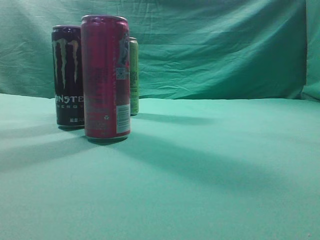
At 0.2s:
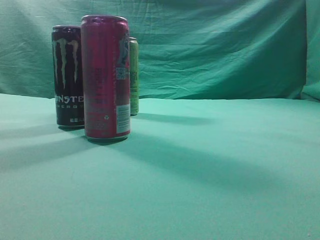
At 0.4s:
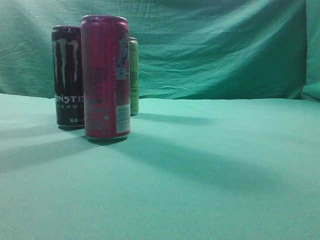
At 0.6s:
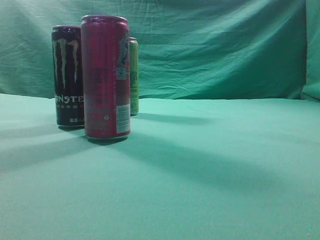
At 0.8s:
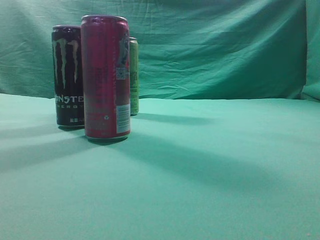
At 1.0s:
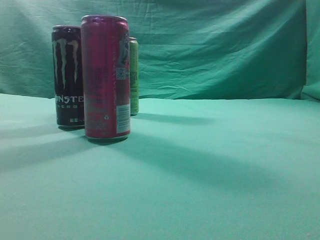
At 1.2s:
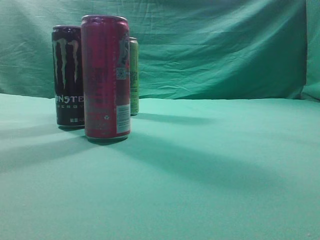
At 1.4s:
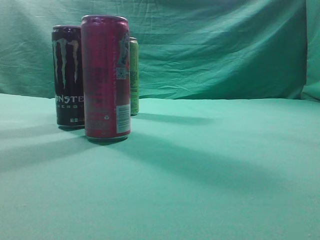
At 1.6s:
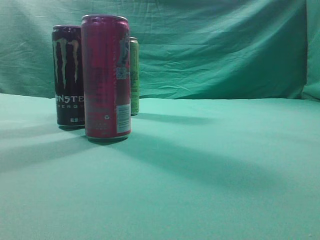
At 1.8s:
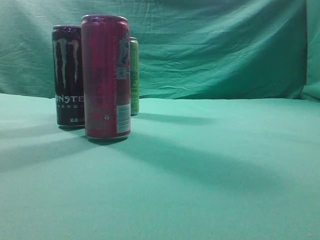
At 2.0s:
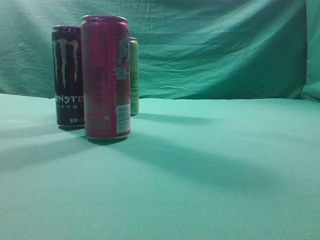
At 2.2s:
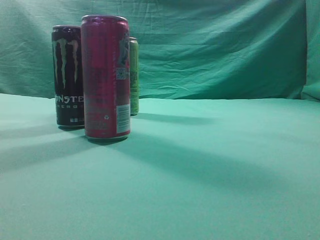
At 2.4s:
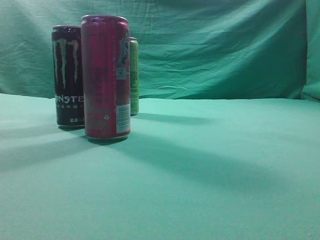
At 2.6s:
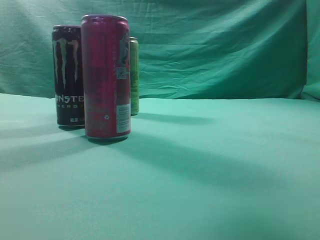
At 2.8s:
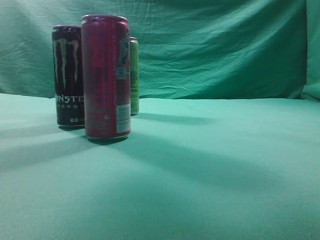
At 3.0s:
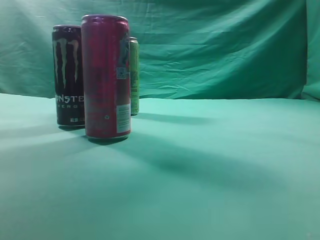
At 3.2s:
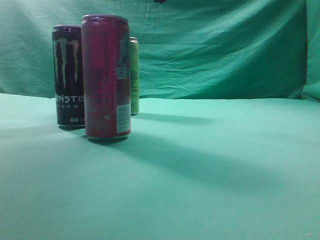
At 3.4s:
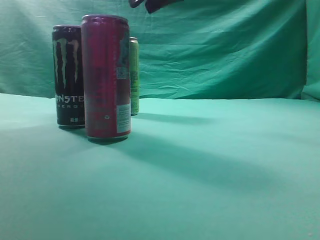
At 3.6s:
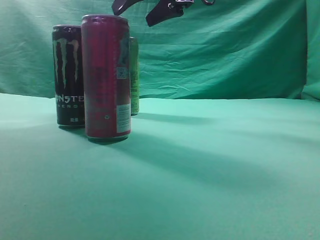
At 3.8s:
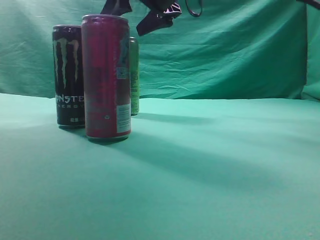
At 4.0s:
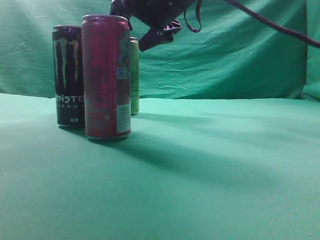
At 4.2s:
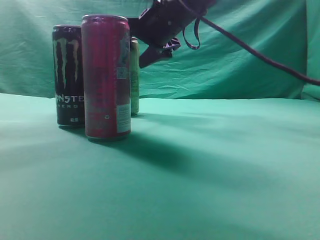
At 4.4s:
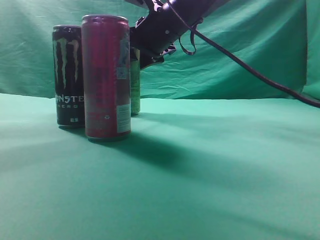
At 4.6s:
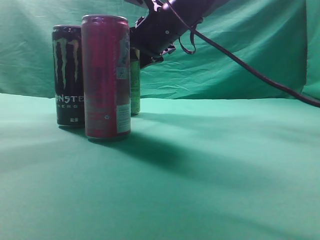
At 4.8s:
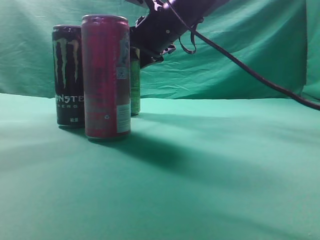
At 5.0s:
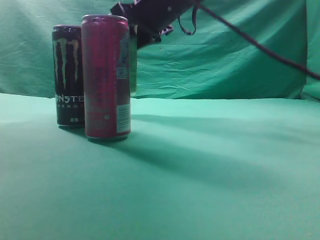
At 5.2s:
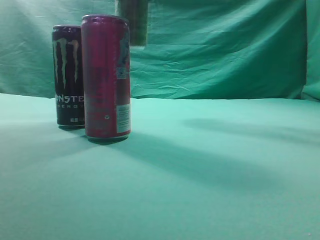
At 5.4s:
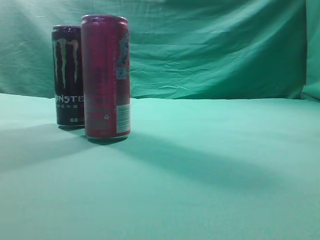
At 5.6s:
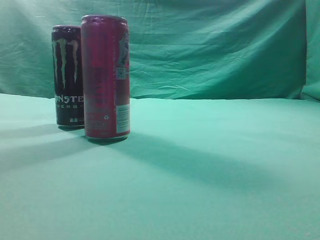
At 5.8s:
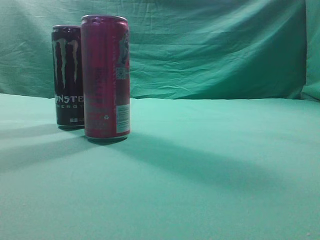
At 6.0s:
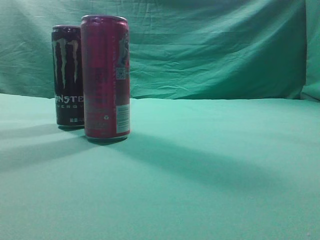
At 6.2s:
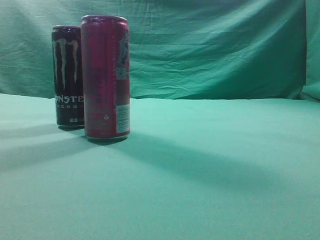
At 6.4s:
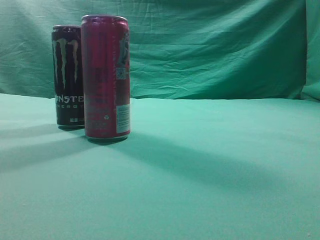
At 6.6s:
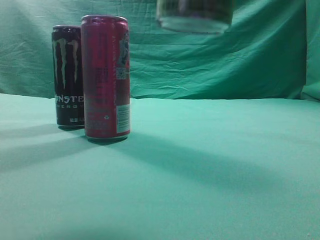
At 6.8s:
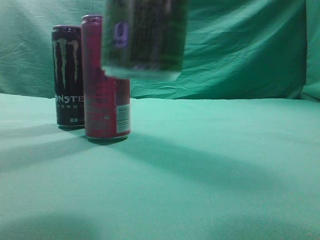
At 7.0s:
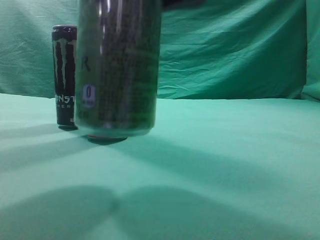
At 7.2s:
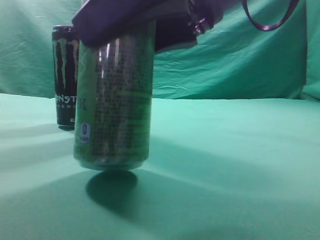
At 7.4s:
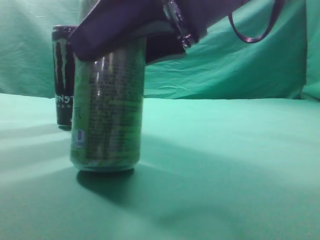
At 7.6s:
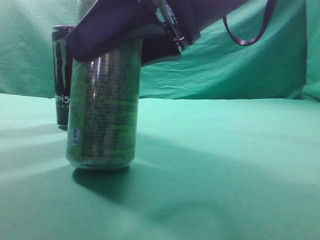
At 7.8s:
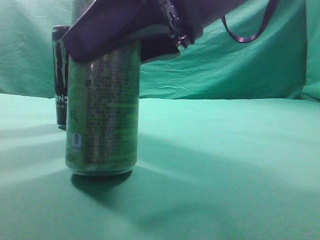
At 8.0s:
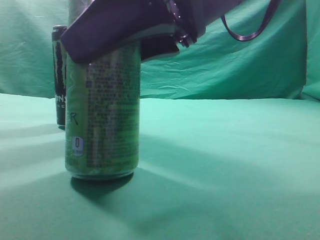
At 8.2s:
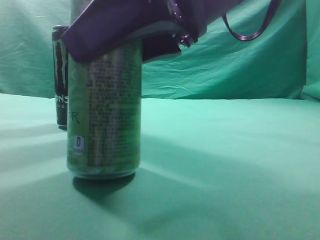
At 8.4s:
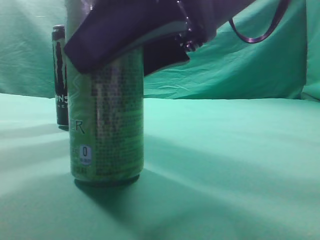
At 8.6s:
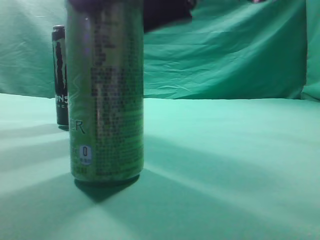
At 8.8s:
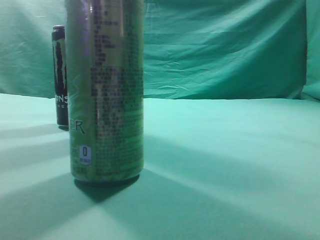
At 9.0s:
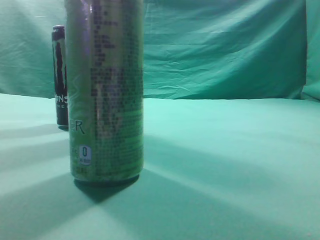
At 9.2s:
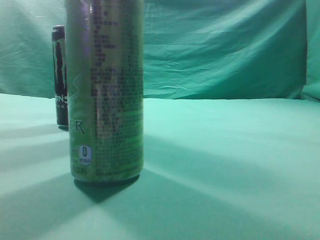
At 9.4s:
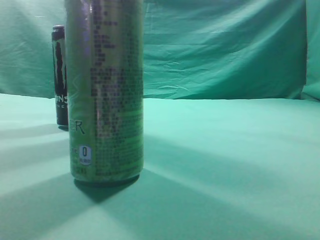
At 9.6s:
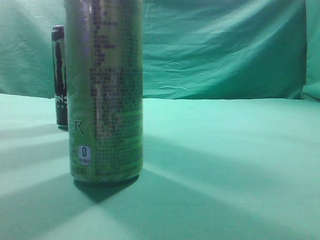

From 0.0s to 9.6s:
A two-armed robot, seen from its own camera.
Task of the whole recording: move one drink among three beverages.
Step, from 0.0s to 5.0s: Grasp the beverage bottle placed at the back of the desk.
Step, from 5.2s to 8.6s: Place the beverage bottle to the front of the table.
From 1.6s to 3.2s: The right gripper heads forward and to the left, covering some 35 cm.
From 3.2s to 4.8s: The right gripper shifts about 15 cm downward, forward and to the left, and opens its fingers.
From 4.8s to 6.4s: The right gripper travels backward, to the right and upward by some 30 cm.
From 6.4s to 8.0s: The right gripper heads downward and to the left, covering roughly 15 cm.
From 8.0s to 9.6s: The right gripper is displaced upward, to the right and backward by approximately 30 cm, and closes its fingers.
